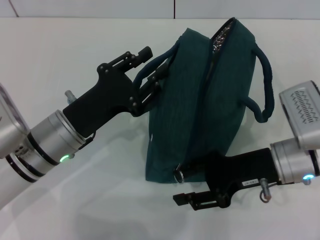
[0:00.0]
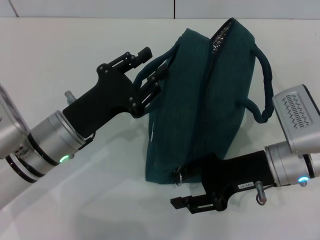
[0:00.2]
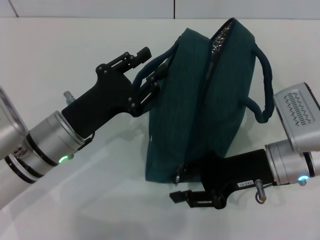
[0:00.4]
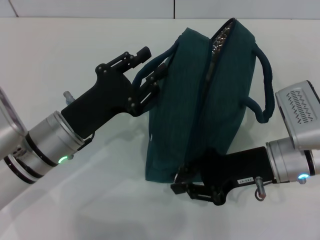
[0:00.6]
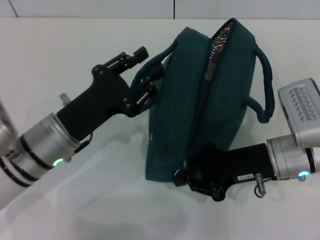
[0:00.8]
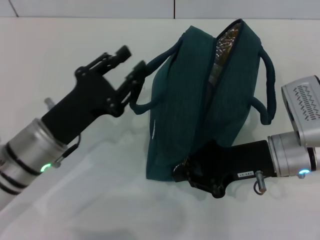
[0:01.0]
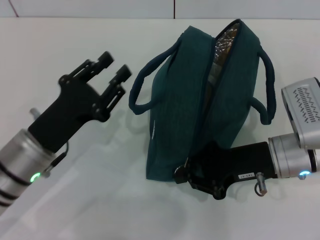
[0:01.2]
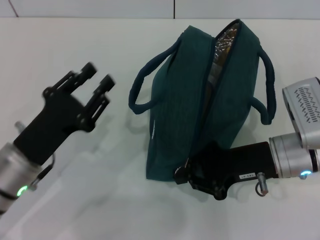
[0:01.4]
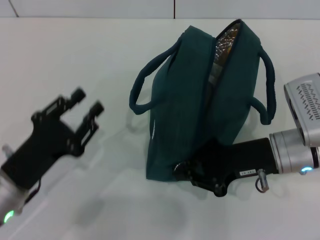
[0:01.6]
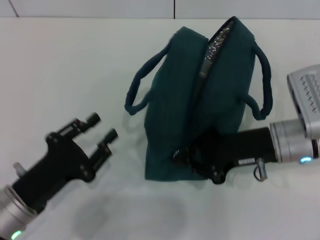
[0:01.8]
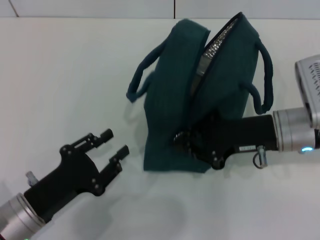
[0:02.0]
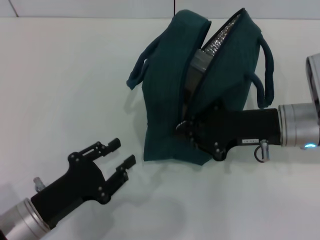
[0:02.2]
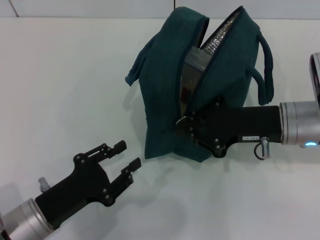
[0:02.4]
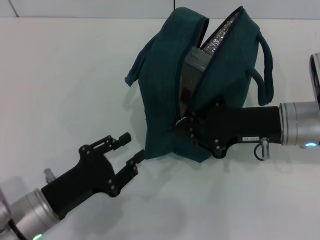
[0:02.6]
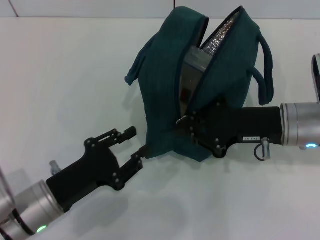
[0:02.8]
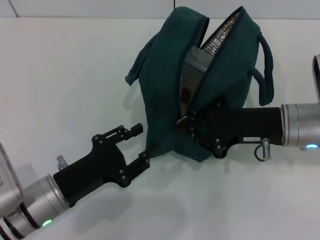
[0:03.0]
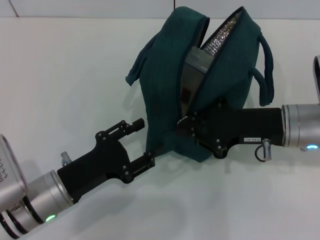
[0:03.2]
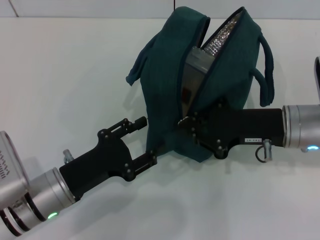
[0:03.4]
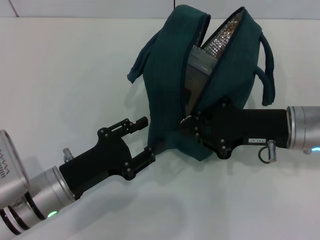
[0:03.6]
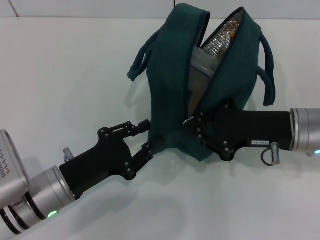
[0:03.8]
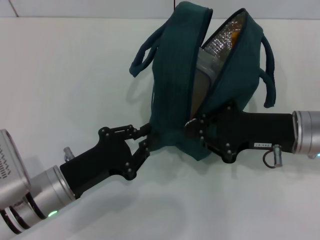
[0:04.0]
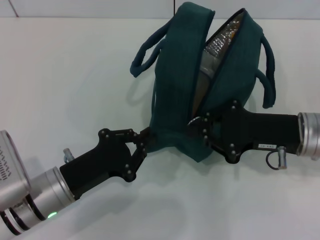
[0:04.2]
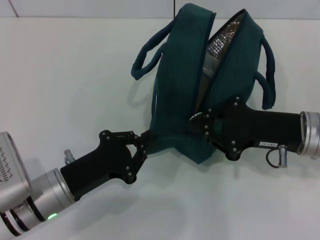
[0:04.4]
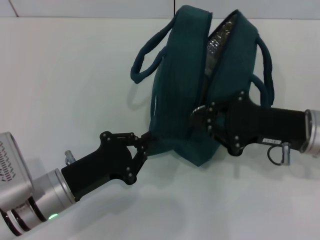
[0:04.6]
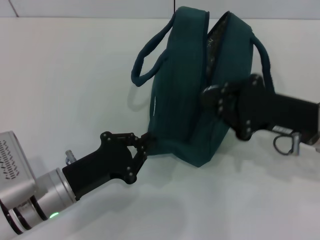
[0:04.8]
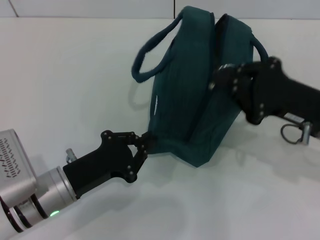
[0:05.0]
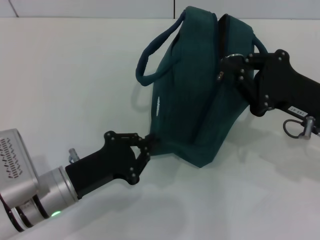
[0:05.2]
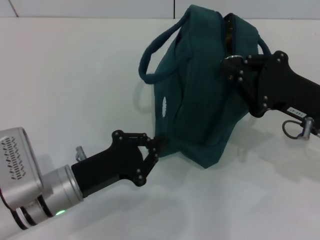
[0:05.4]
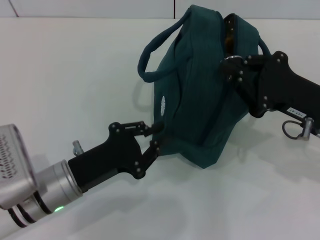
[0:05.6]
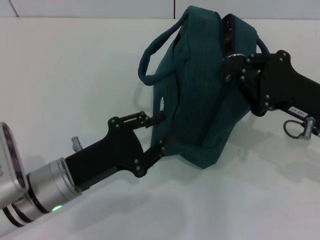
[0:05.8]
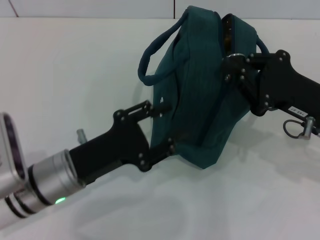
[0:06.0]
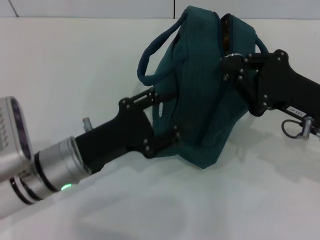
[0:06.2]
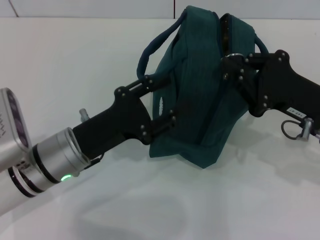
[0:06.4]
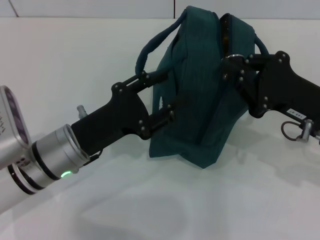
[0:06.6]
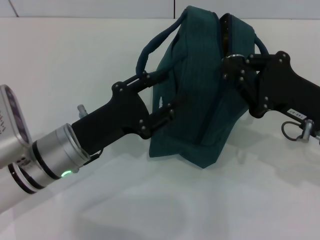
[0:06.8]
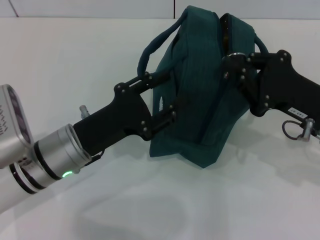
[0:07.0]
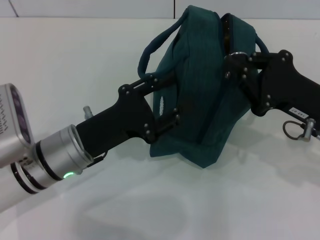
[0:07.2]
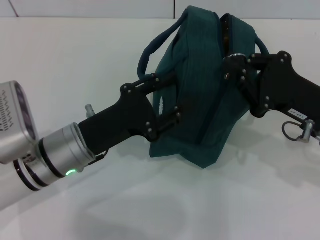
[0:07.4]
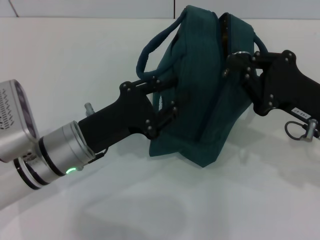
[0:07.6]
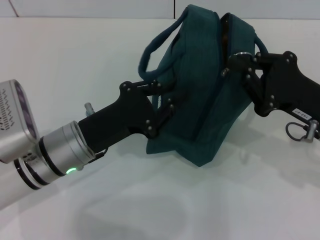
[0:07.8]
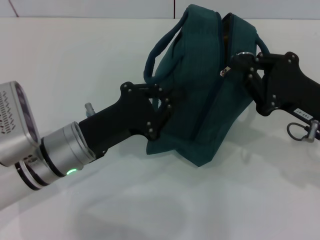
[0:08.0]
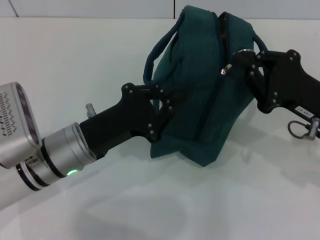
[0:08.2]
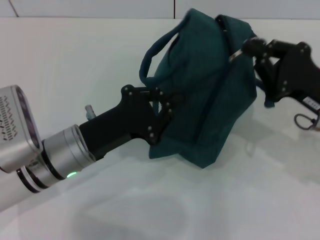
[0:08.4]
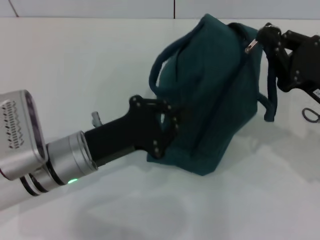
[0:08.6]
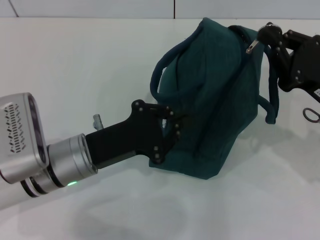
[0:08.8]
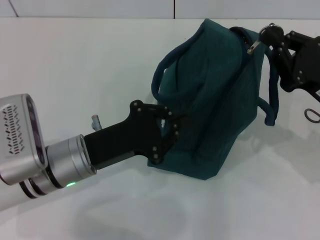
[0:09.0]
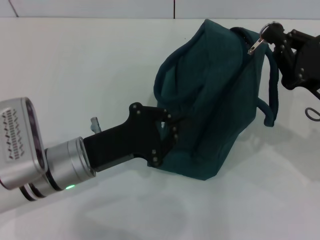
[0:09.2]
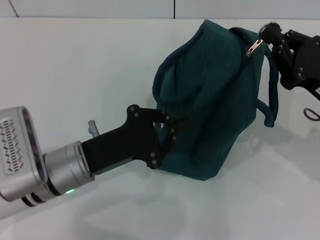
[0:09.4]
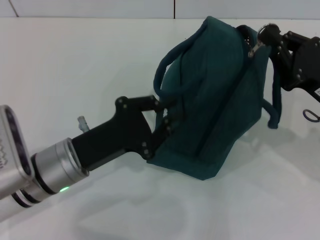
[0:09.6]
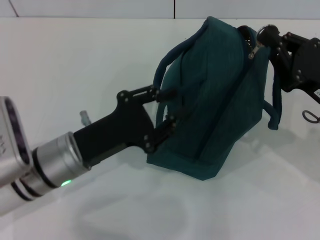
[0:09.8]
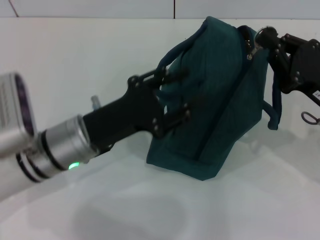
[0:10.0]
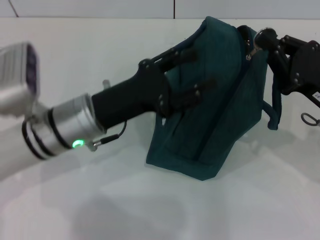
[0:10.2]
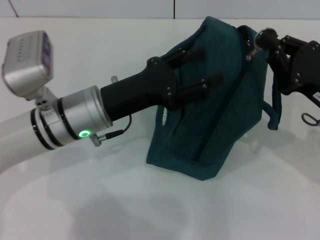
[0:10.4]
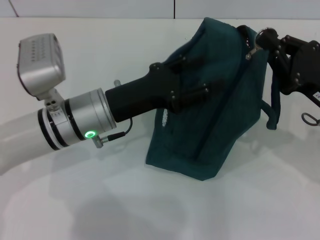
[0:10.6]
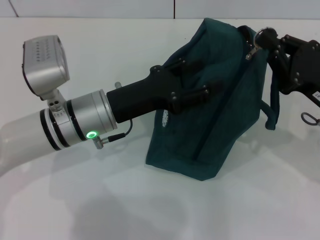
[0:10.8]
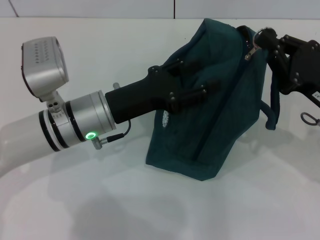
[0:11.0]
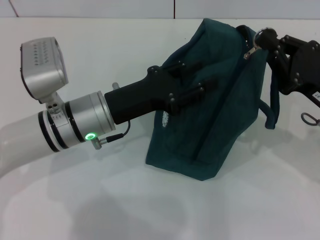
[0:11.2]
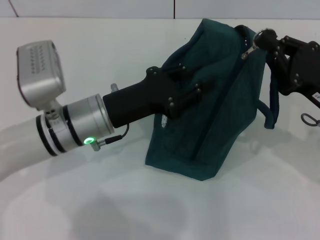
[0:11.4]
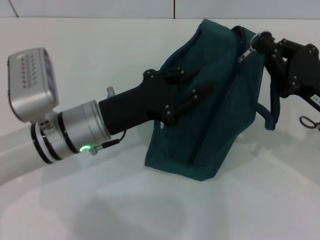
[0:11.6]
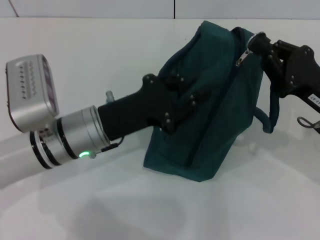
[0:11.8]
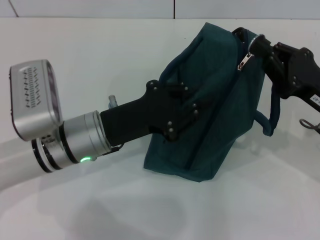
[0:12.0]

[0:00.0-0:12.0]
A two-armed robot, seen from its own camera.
0:00.0 to 0:01.6: The left gripper is displaced backward and to the left by some 10 cm. Meanwhile the right gripper closes its fingers.
0:03.0 to 0:04.4: The left gripper closes up.
0:06.0 to 0:07.6: The grippers make only small movements.
0:07.6 to 0:09.0: The left gripper closes.
0:09.0 to 0:10.4: The left gripper ends up approximately 5 cm from where it was, and opens up.
0:10.4 to 0:12.0: The left gripper closes.

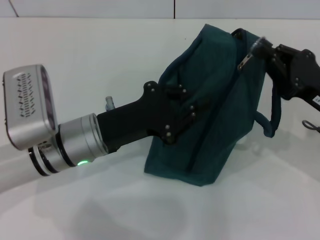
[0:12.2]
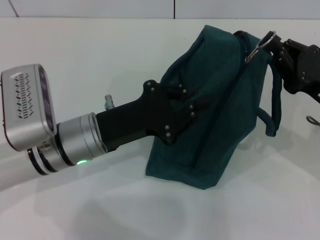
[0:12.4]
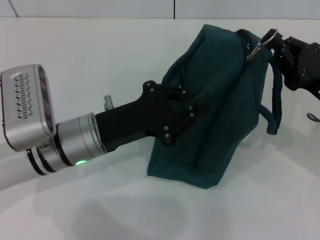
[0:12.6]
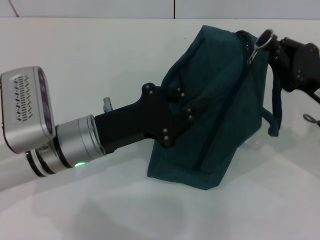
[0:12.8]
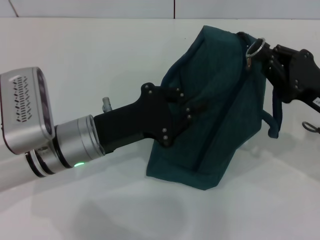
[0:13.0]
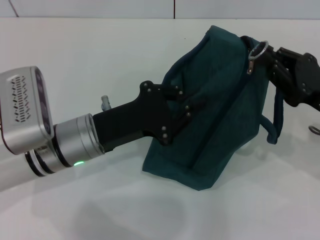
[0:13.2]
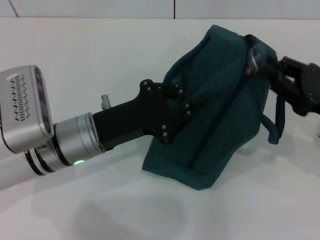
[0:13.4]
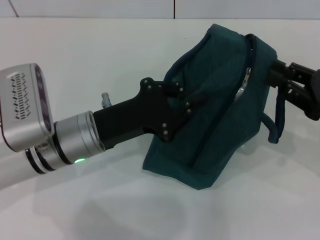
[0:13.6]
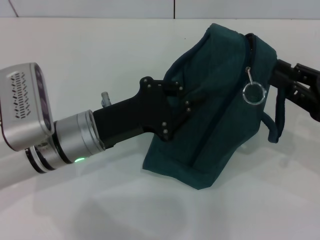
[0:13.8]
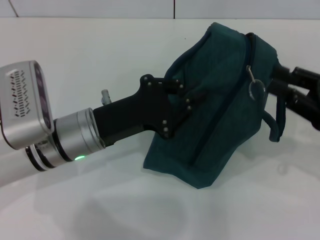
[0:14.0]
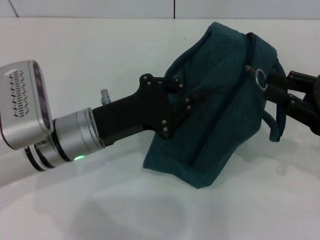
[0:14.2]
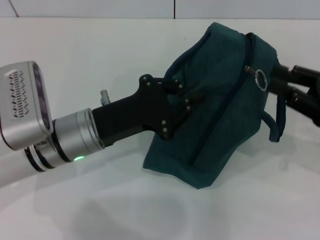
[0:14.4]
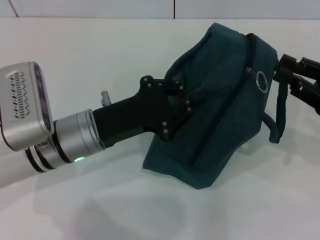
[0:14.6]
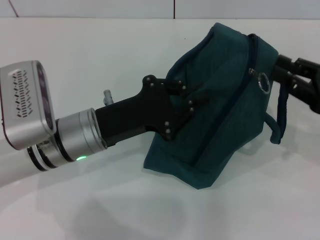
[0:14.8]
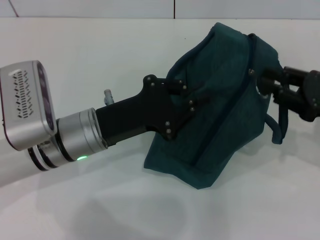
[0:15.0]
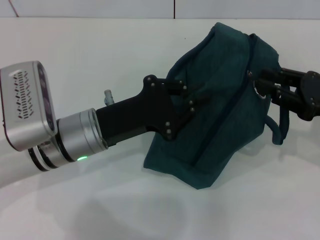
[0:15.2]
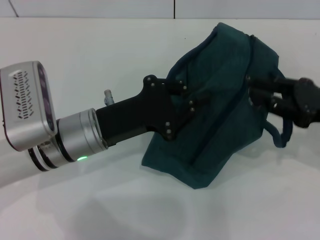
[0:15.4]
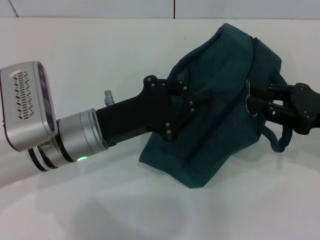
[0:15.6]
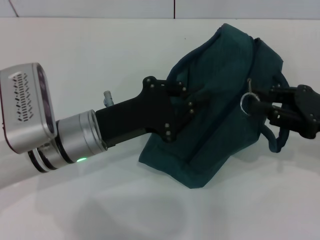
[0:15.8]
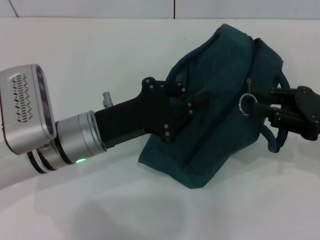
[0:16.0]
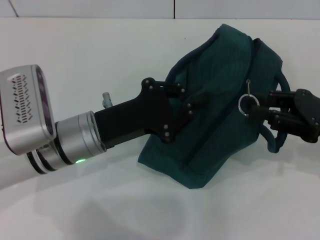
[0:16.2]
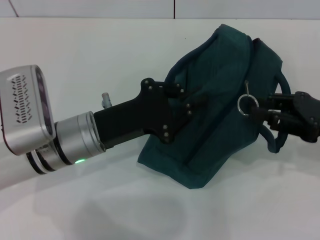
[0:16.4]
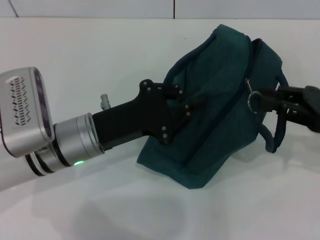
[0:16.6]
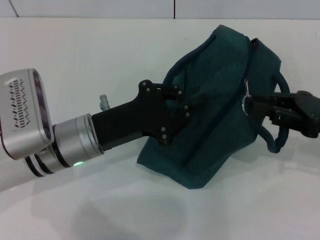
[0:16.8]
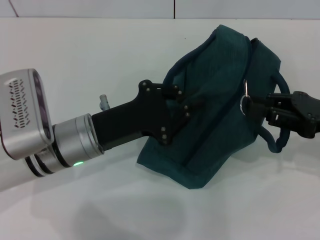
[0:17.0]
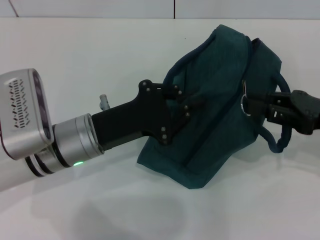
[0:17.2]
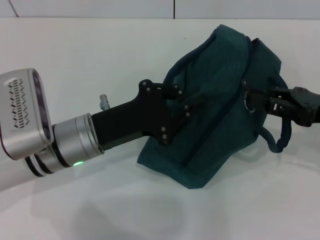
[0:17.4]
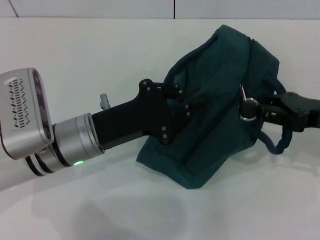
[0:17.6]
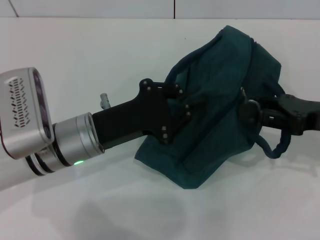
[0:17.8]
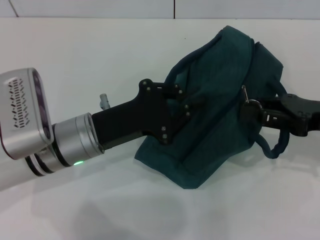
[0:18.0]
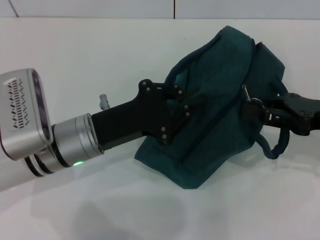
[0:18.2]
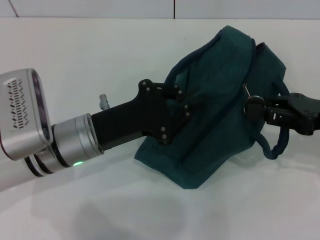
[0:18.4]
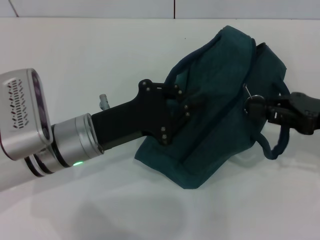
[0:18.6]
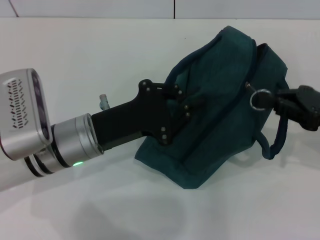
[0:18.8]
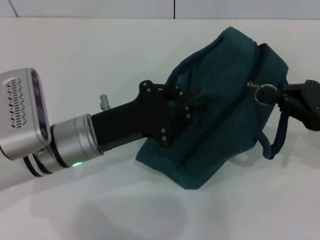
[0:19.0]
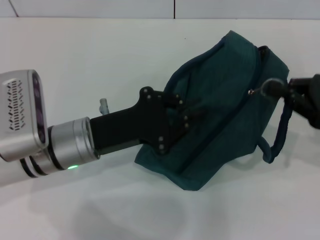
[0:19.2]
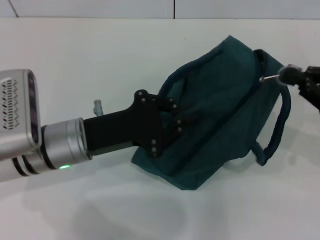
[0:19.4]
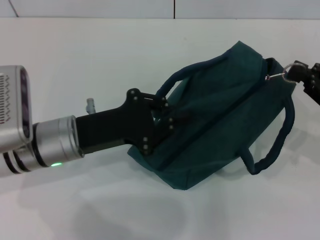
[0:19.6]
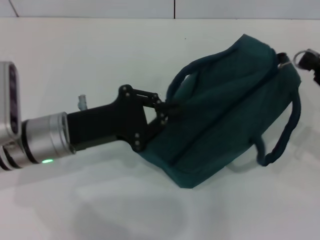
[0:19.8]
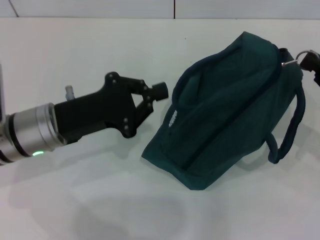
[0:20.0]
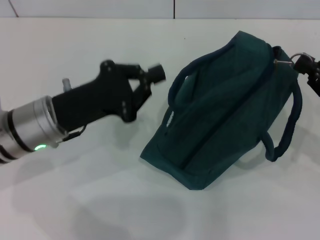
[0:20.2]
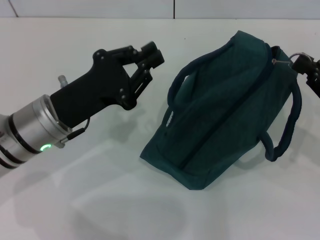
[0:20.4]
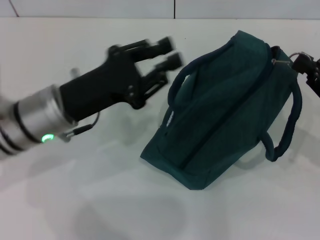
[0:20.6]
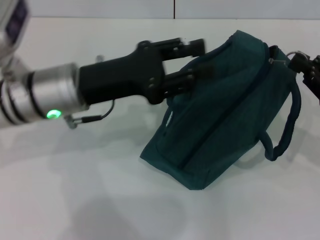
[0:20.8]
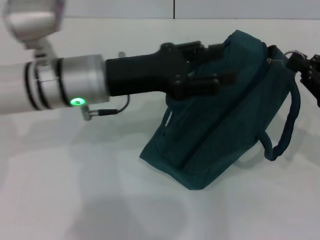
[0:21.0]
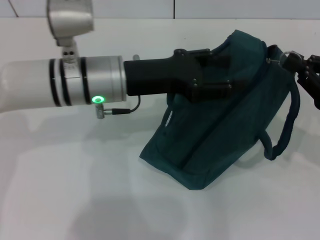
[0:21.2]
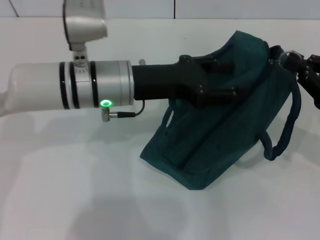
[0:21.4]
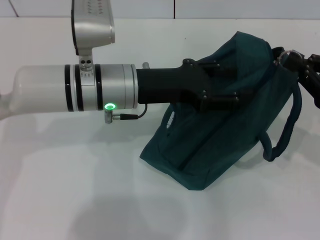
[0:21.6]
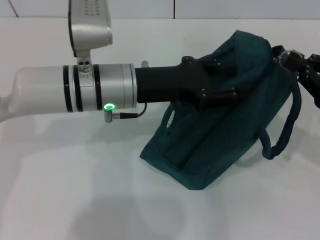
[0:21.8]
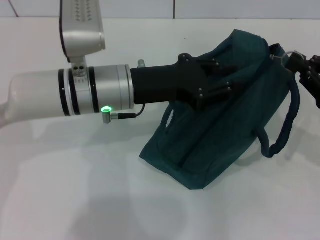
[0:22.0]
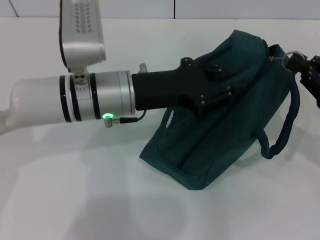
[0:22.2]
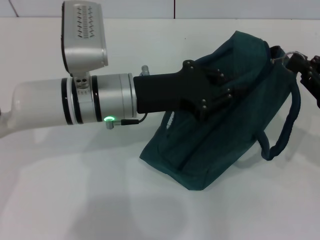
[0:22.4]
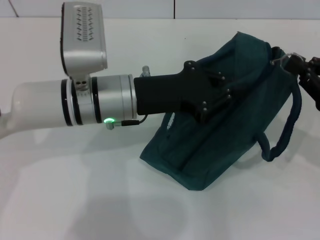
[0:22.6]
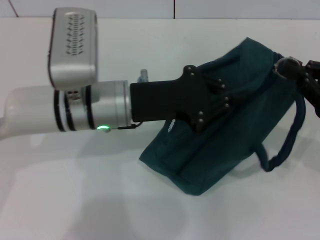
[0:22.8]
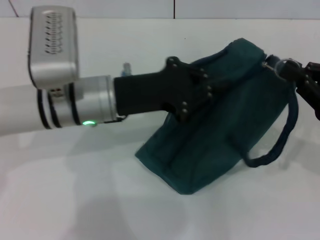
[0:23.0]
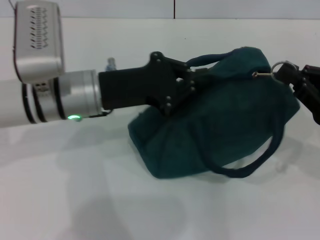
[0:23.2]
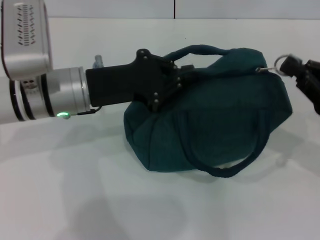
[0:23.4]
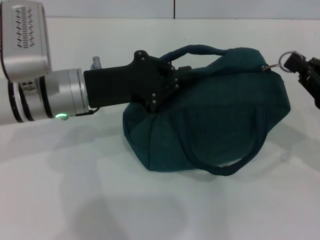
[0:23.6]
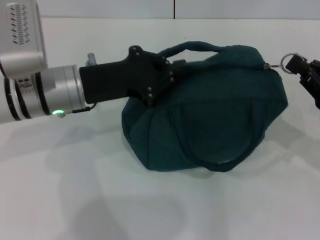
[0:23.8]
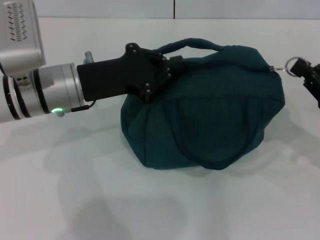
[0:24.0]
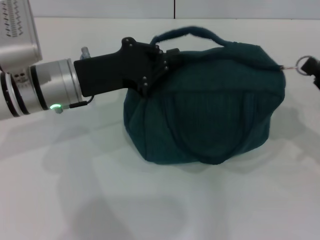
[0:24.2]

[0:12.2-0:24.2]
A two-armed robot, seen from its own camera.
0:12.2 to 0:13.8: The right gripper opens up.
0:13.8 to 0:15.2: The grippers move only a little.
0:15.2 to 0:16.6: The grippers stay close to where they were, moving slightly.
0:16.6 to 0:18.2: There are only small adjustments of the grippers.
0:18.2 to 0:19.8: The right gripper shifts by approximately 5 cm.
0:19.8 to 0:21.2: The left gripper moves to the right, forward and upward, some 10 cm, and opens its fingers.
0:21.2 to 0:22.6: The left gripper closes its fingers.
0:22.6 to 0:24.2: The left gripper heads to the left, covering some 5 cm.
